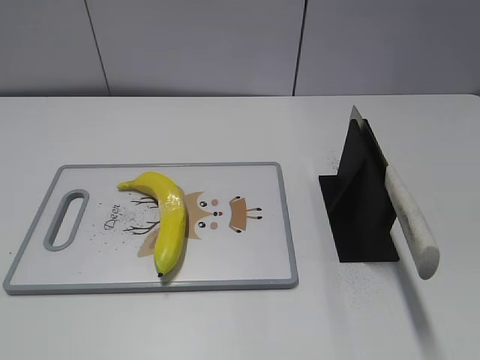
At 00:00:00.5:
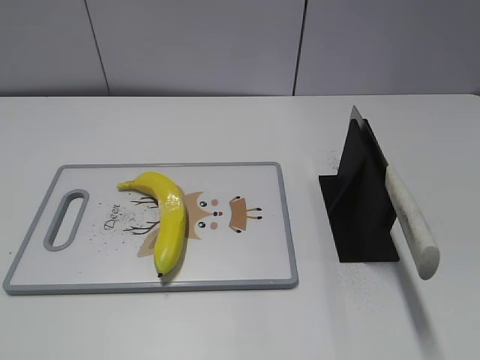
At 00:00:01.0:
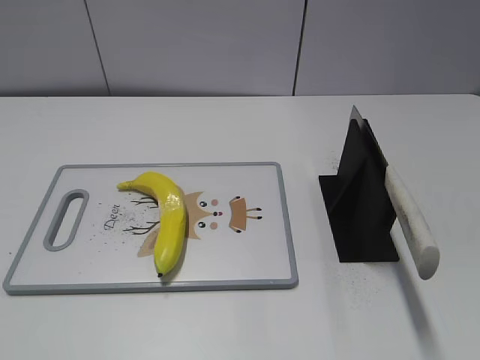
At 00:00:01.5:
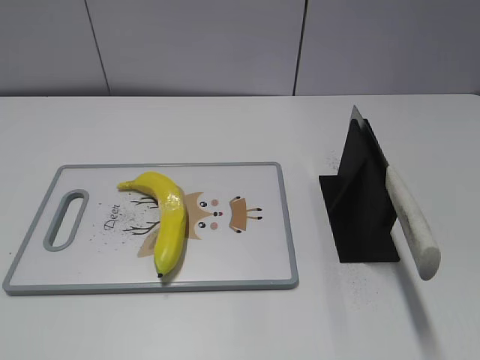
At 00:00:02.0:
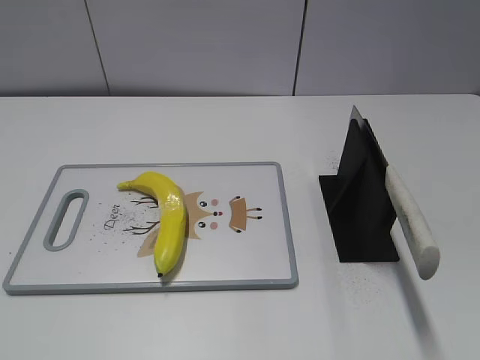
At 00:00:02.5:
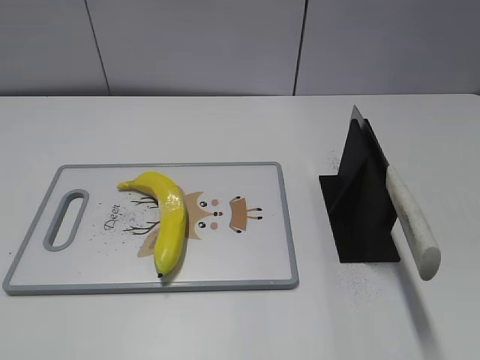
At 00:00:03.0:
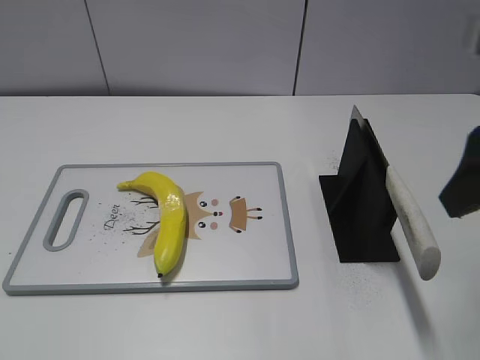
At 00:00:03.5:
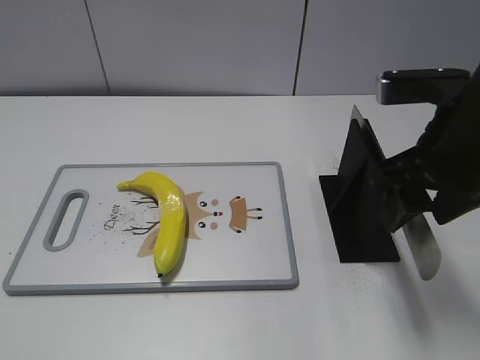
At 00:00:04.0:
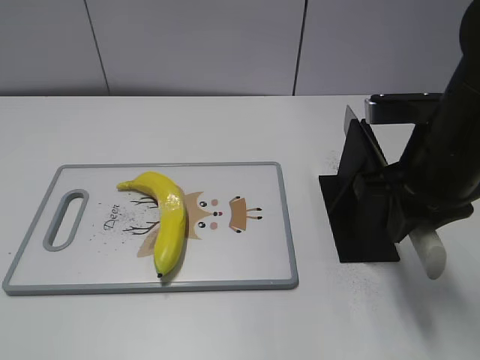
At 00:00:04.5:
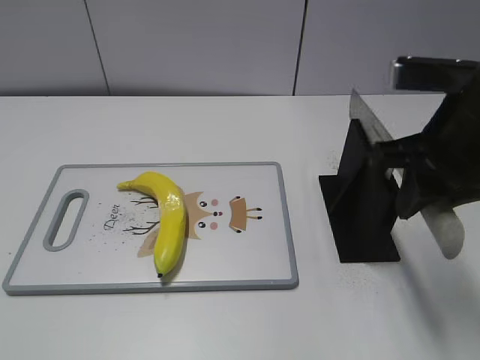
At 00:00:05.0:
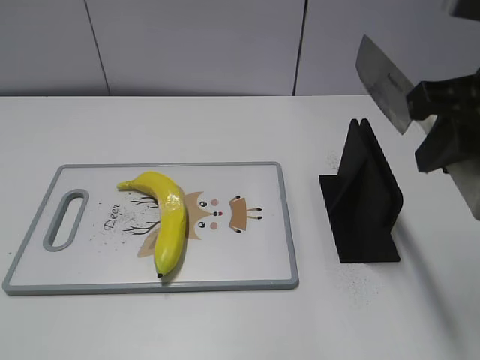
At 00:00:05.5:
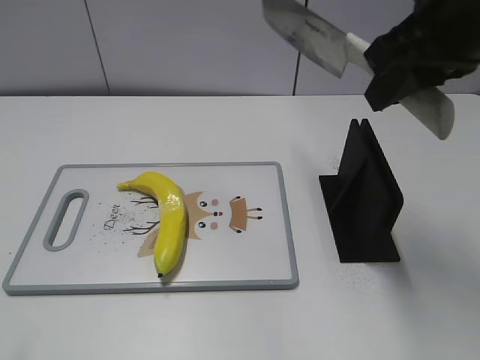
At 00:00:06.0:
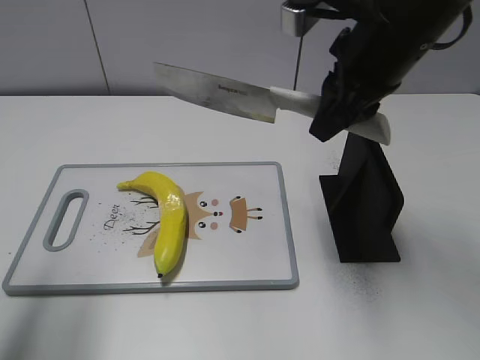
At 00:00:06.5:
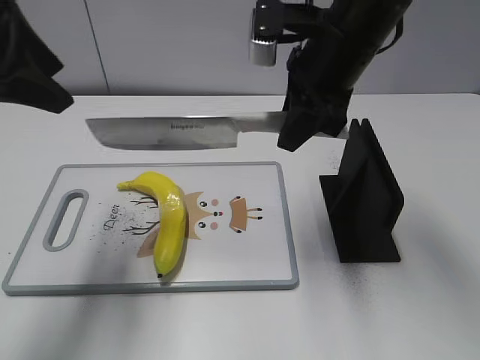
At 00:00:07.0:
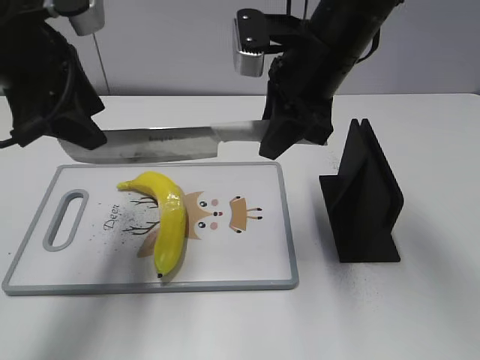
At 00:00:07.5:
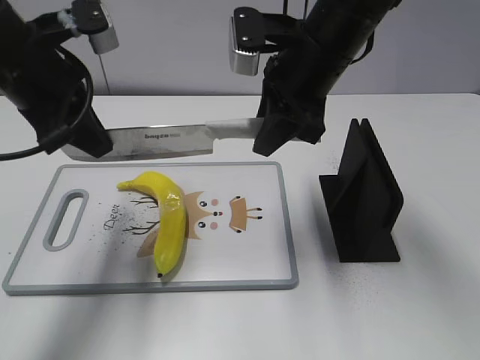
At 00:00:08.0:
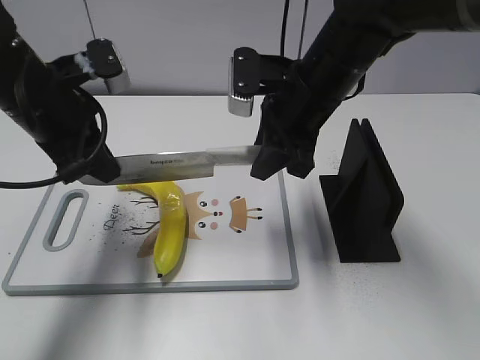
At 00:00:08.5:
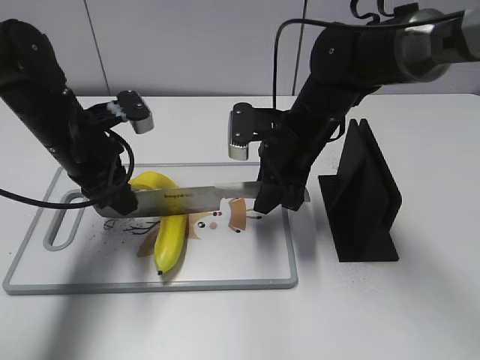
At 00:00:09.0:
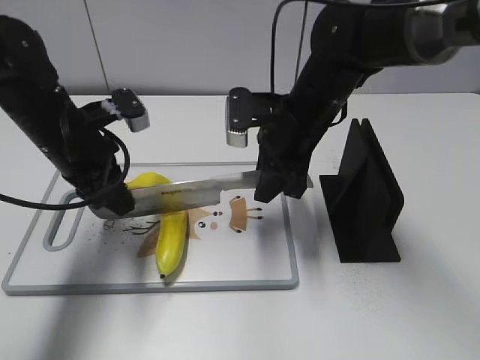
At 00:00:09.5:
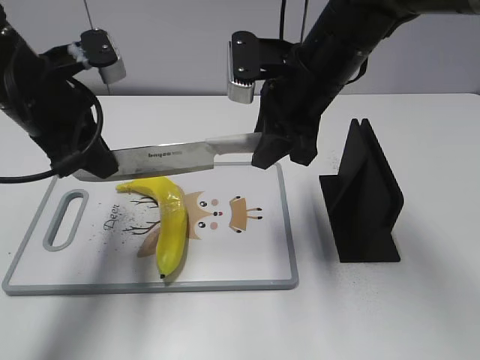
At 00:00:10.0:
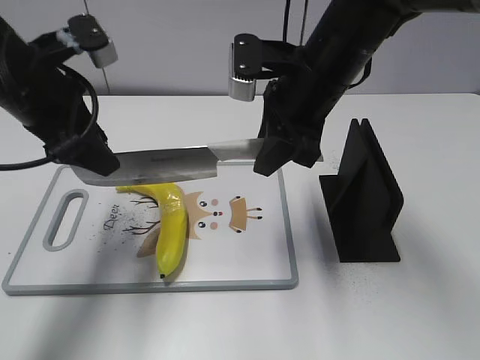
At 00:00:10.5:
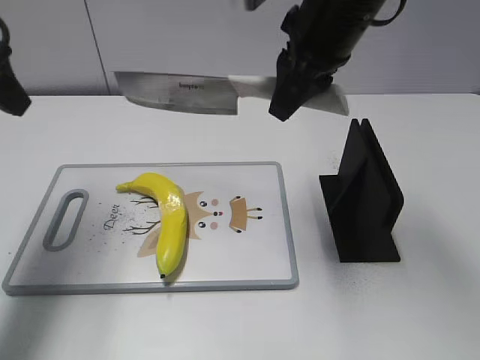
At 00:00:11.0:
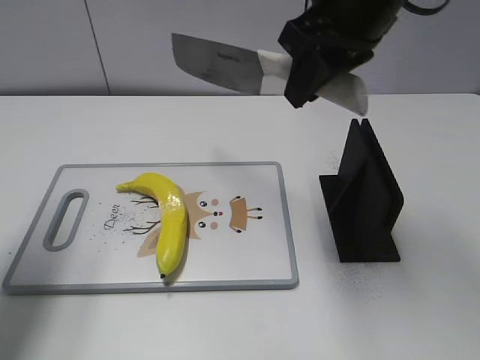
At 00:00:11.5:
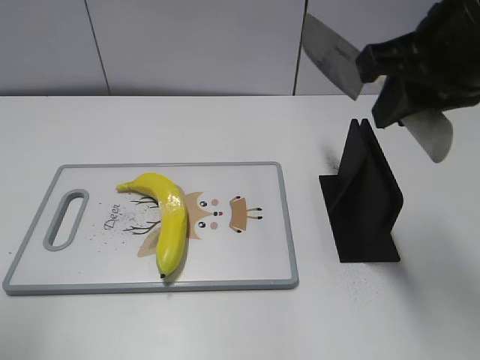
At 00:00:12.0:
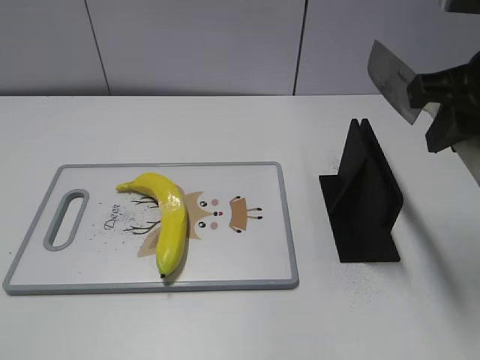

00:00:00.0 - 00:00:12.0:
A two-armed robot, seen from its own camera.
Task of the whole recording: cut plastic banana.
Step, 00:00:00.0 - 00:00:05.0: Grab the knife handle with your right hand.
Step, 00:00:05.5 - 00:00:09.0: Hold the blade with your left hand.
Step, 00:00:09.5 - 00:00:11.0: Cut the banana with your right hand.
00:00:02.0 - 00:00:04.0: The right gripper goes some 25 cm forward, to the left and downward, and closes up.
00:00:04.0 - 00:00:06.0: The right gripper goes some 10 cm upward and forward. Meanwhile the left gripper heads forward, covering approximately 20 cm.
00:00:06.0 - 00:00:08.0: The left gripper is displaced forward, downward and to the right by some 20 cm, and closes. Meanwhile the right gripper heads downward, covering about 10 cm.
00:00:08.0 - 00:00:10.0: The right gripper reaches about 10 cm downward, then returns, while the left gripper travels downward and back again, about 10 cm each way, and opens.
00:00:10.0 - 00:00:12.0: The right gripper heads to the right, backward and upward, covering approximately 15 cm. Meanwhile the left gripper shifts approximately 30 cm backward and to the left.

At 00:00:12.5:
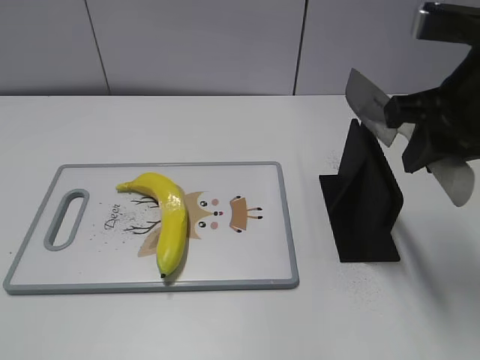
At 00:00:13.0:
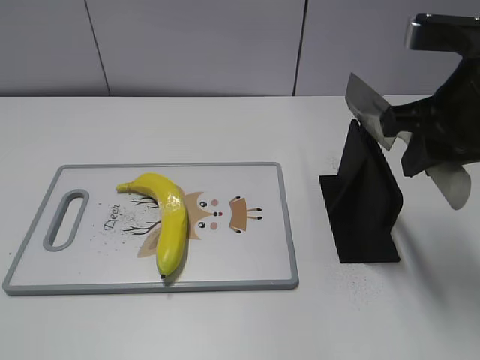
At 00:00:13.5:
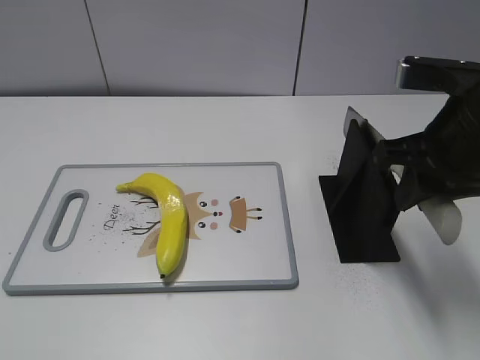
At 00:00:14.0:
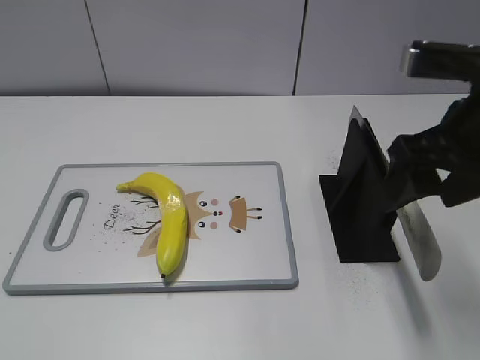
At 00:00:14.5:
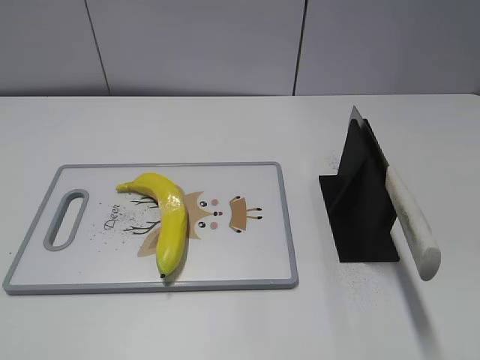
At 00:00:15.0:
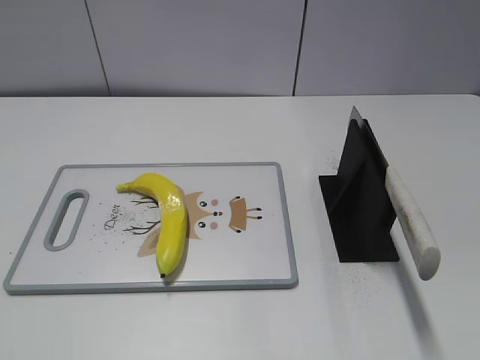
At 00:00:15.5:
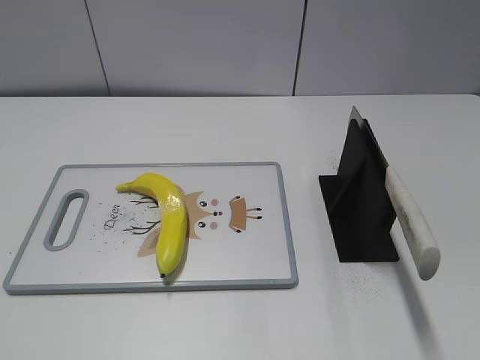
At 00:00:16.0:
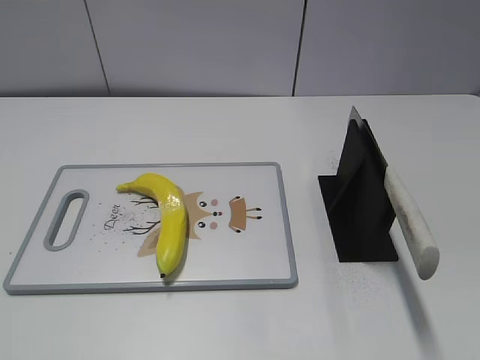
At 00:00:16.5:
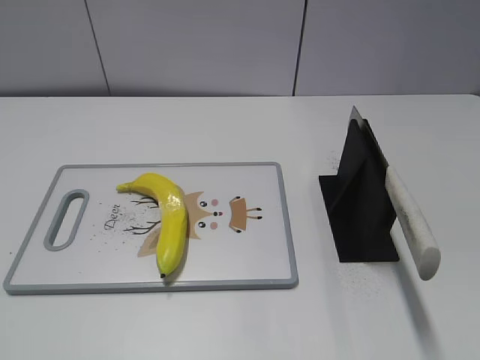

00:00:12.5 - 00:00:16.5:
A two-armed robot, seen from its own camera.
Task of the whole recording: cut plastic banana.
Step, 00:00:12.5 - 00:00:16.5: Place the knife on the storage rack with your right hand.
00:00:12.5 - 00:00:14.5: The right gripper shifts approximately 15 cm backward, and opens up.
